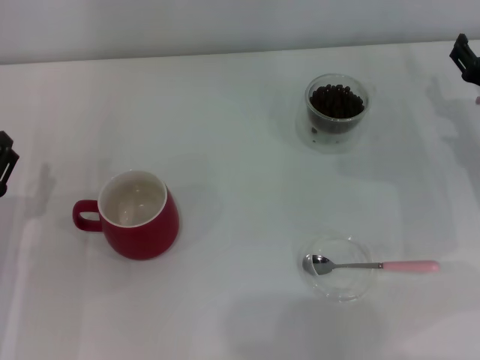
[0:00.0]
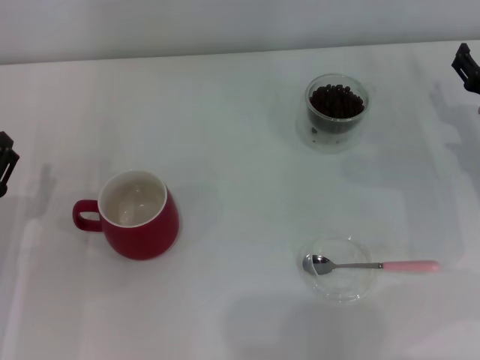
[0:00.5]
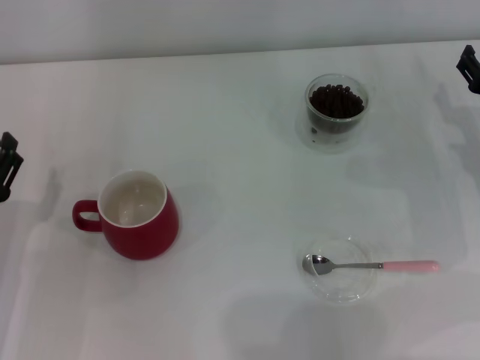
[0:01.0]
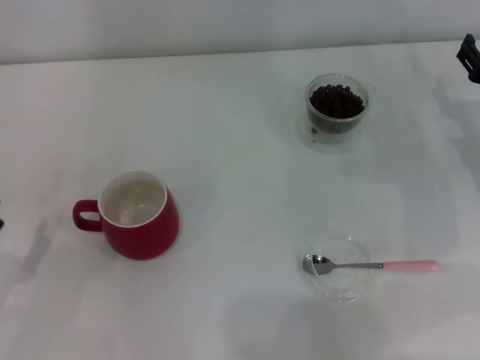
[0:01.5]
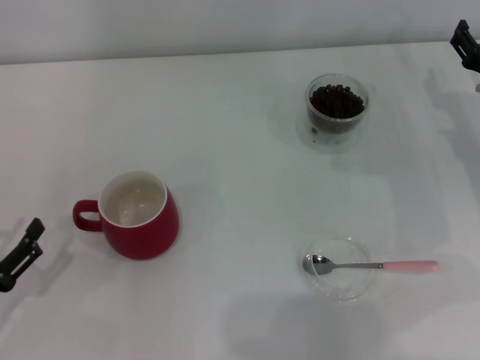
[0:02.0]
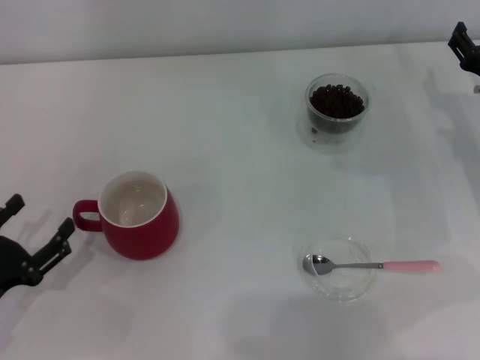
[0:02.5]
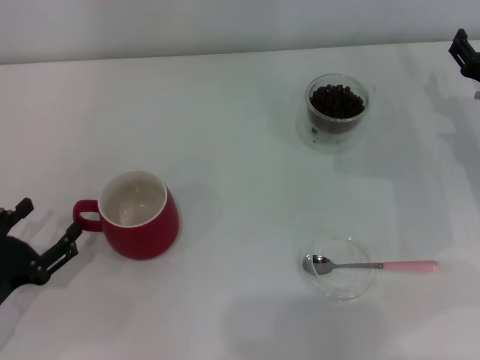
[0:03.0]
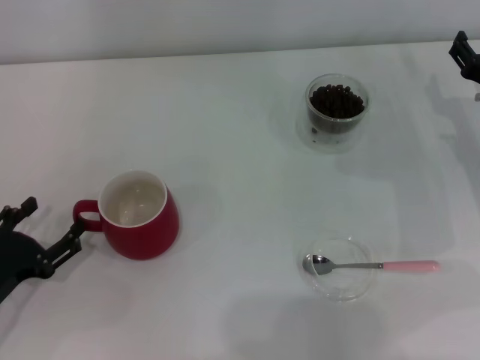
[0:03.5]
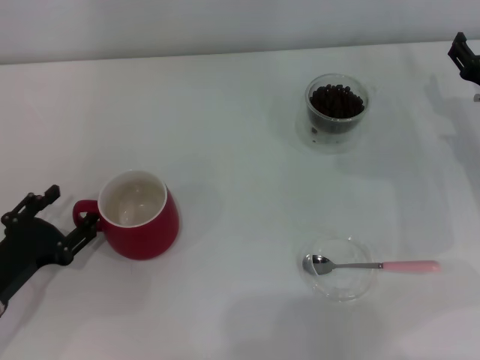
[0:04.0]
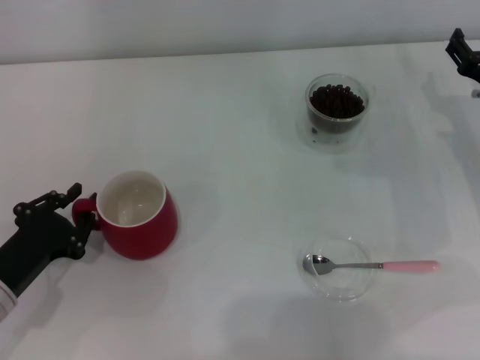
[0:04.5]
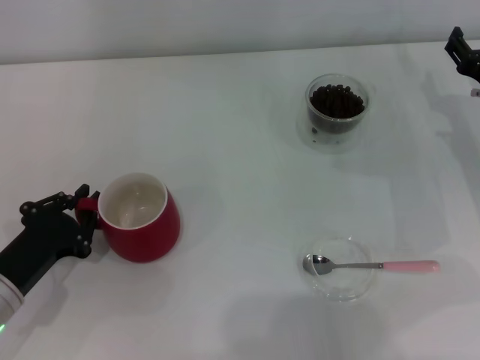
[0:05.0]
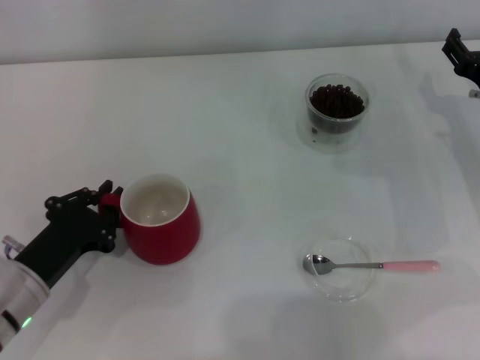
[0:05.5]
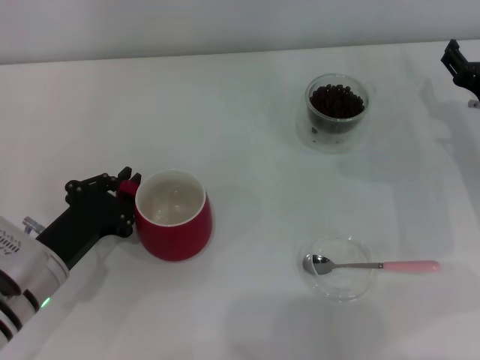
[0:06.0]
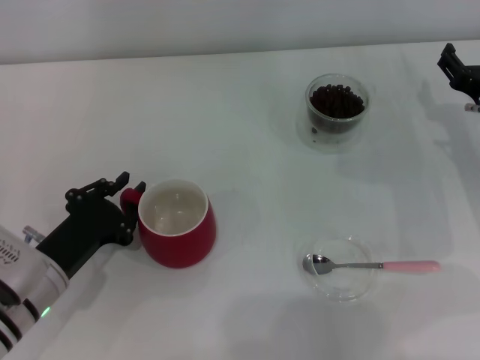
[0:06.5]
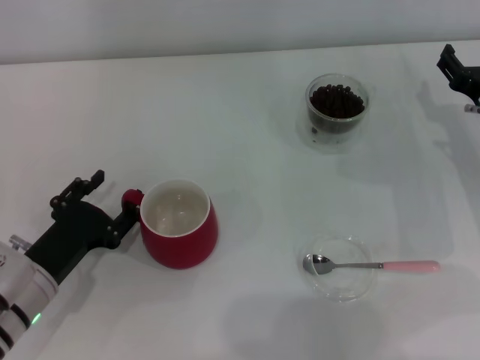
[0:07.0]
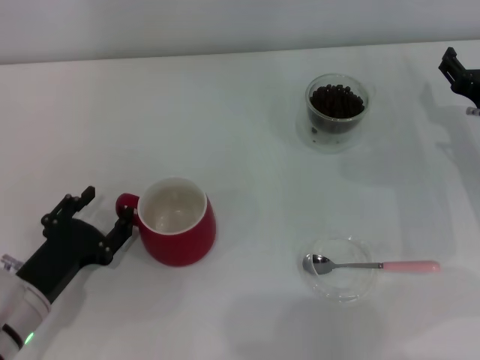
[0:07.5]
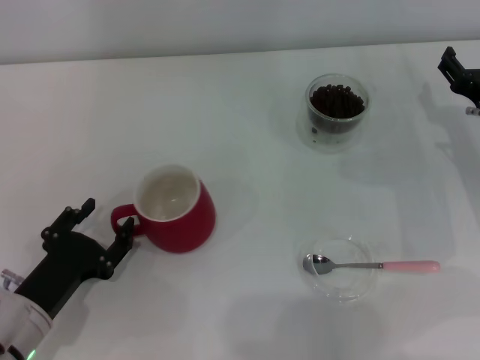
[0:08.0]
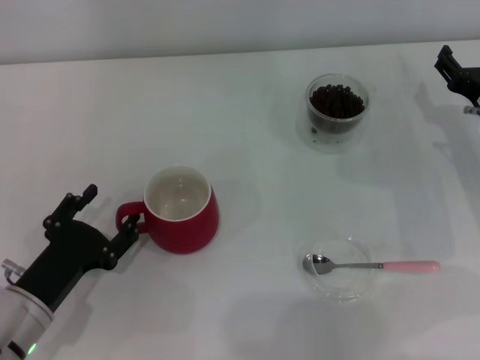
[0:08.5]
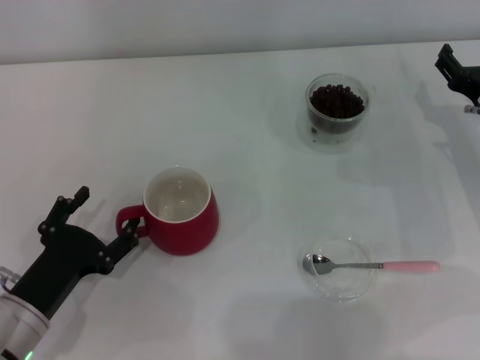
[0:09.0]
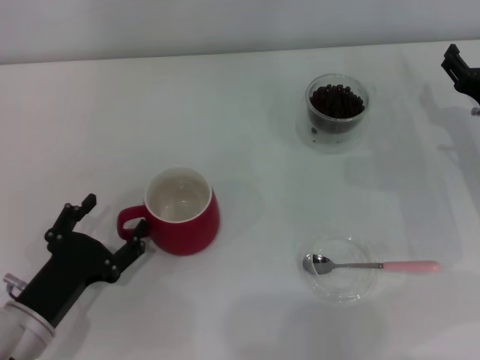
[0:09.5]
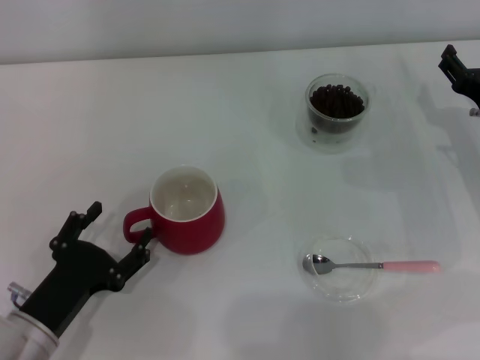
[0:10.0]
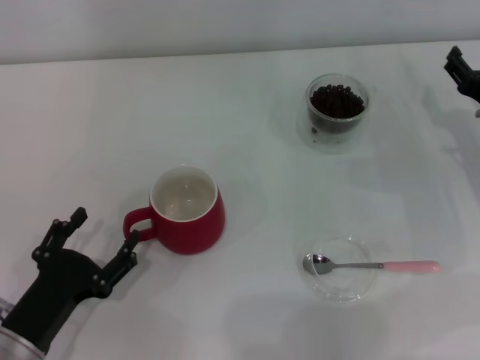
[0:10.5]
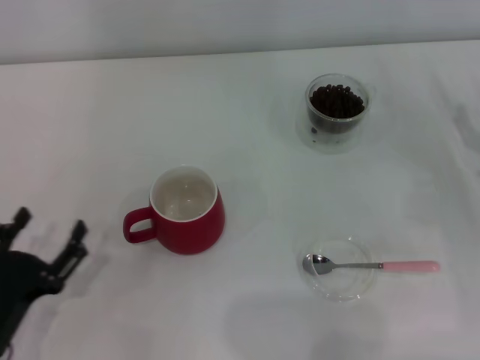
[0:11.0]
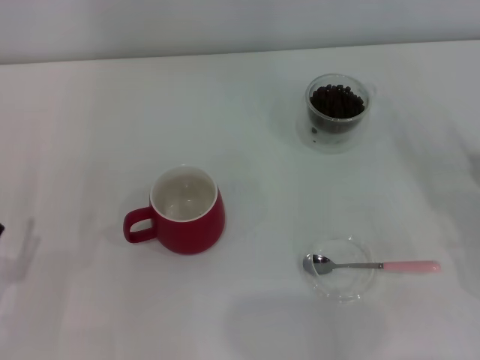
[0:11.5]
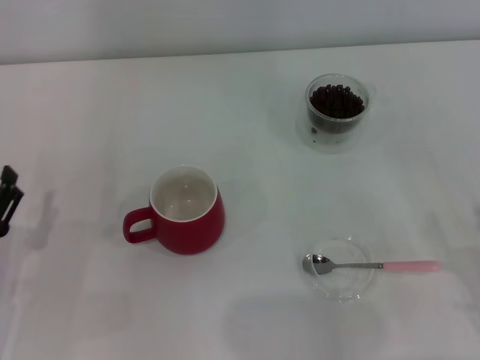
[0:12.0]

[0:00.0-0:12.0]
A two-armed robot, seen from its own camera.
Task of the whole recording: Use a pink spoon to take out the coffee beans from the glass and pour them into the red cup.
Step, 0:00.0 to 0:11.0: Move the cup to the center of view with the left gripper.
0:00.0 to 0:02.0: The left gripper goes some 5 cm backward.
0:02.0 to 0:04.0: The left gripper moves forward, approximately 5 cm.
0:04.0 to 0:06.0: The left gripper shifts approximately 5 cm to the right, and closes up.
0:06.0 to 0:08.0: The left gripper moves approximately 5 cm, and opens its fingers.
0:08.0 to 0:10.0: The grippers move only a little.
0:10.0 to 0:12.0: The left gripper goes approximately 5 cm to the left. The right gripper is displaced backward by approximately 20 cm.

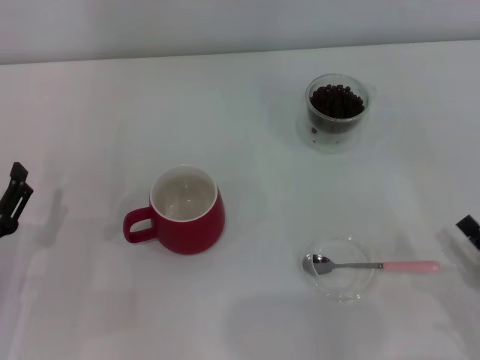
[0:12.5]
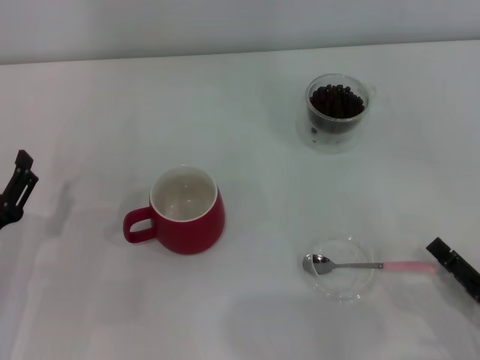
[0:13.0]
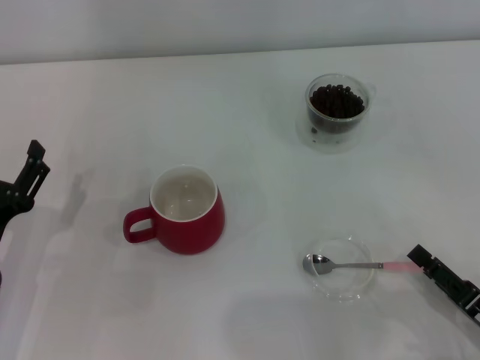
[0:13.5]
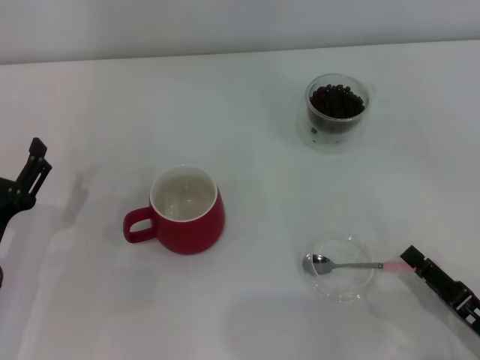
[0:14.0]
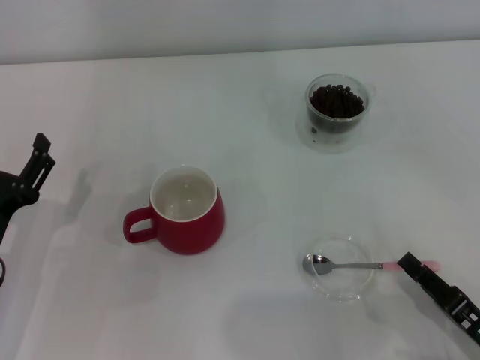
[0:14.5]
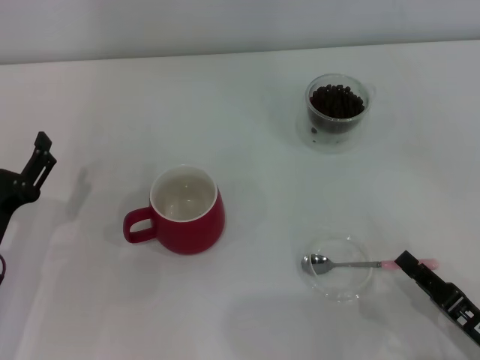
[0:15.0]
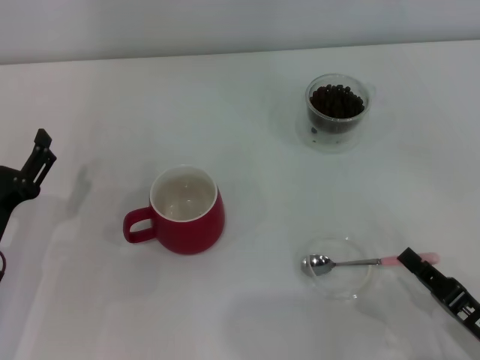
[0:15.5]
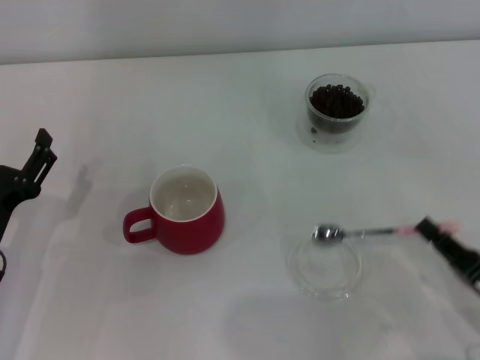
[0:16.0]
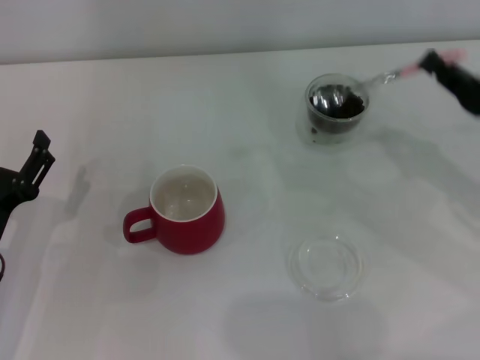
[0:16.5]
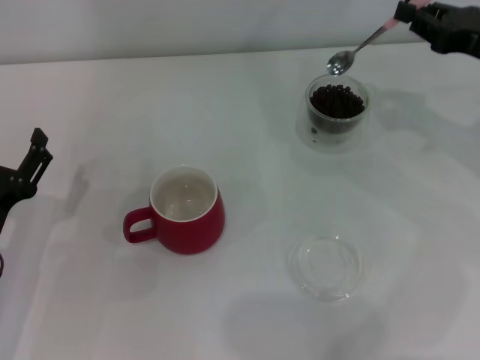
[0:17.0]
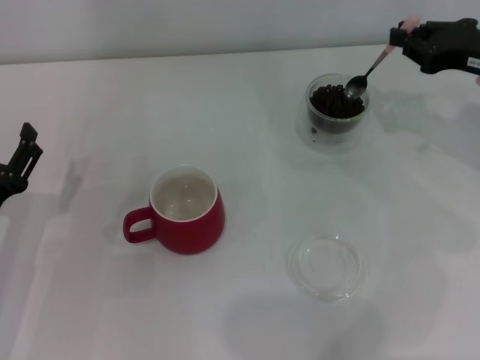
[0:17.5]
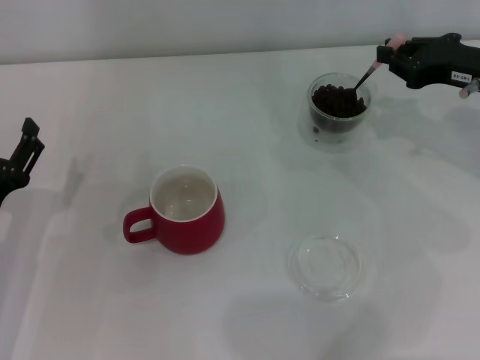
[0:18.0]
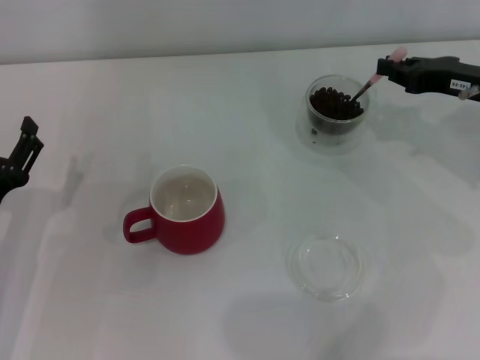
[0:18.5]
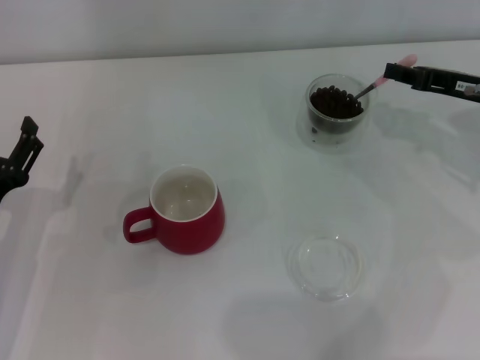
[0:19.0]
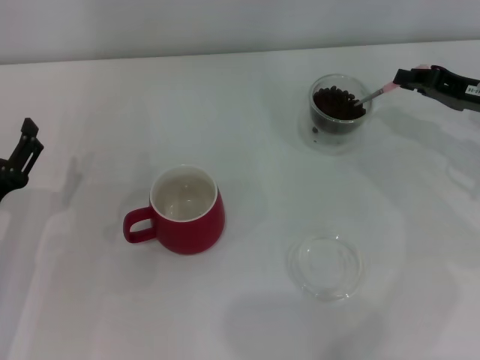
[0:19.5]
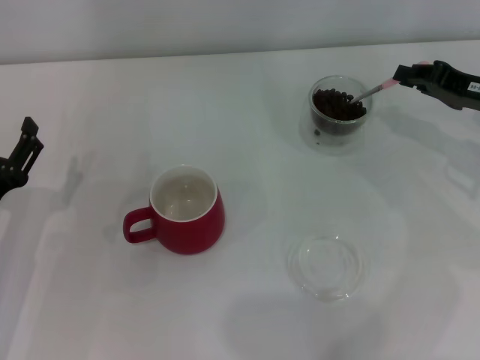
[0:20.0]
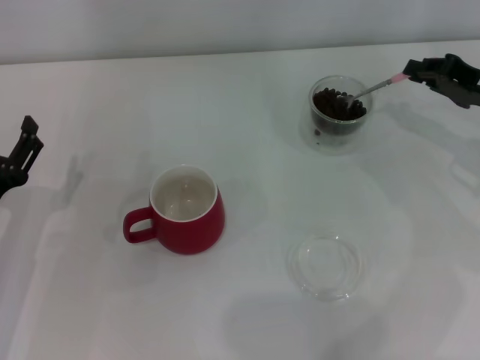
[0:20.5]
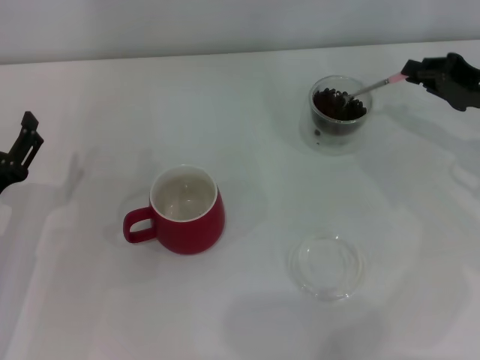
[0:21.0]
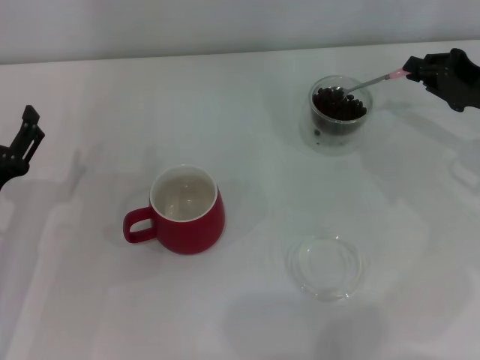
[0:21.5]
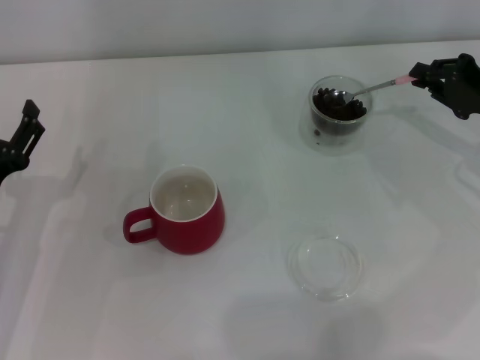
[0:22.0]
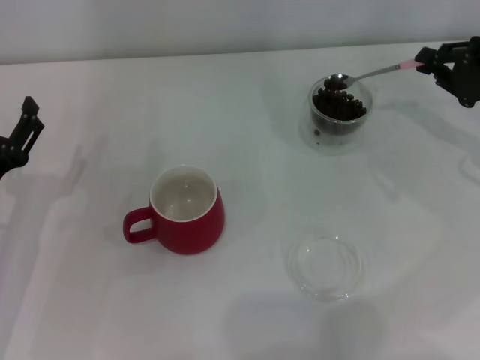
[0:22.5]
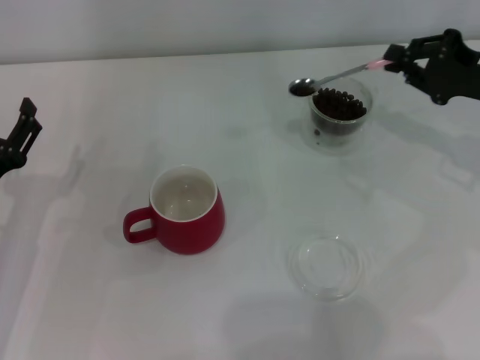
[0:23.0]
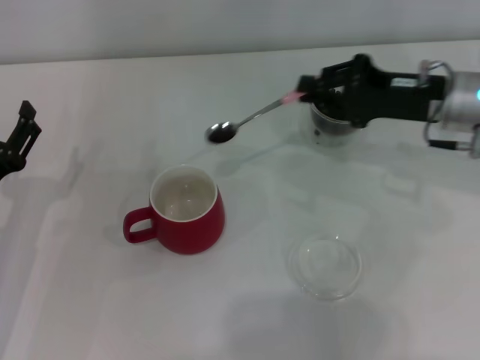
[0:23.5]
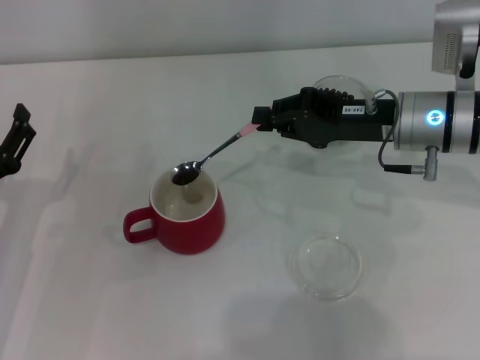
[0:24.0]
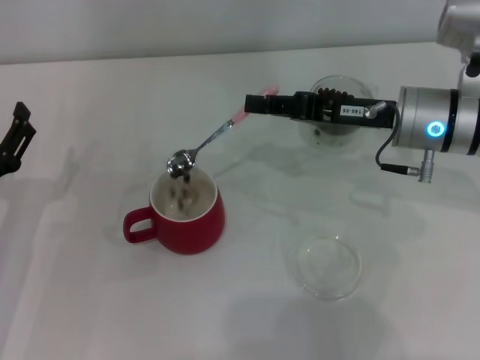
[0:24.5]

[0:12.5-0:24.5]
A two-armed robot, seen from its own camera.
Task of the whole recording: Use a pink spoon to take out the coffee beans from the glass and pour them into the red cup.
Step, 0:12.5 to 0:15.5: Pick up the spoon with the right gripper.
0:12.5 to 0:14.5: The right gripper closes.
0:14.5 to 0:16.5: The right gripper travels forward and upward by approximately 20 cm, and closes its fingers.
0:16.5 to 0:18.5: The right gripper shifts roughly 10 cm forward.
0:22.5 to 0:24.5: The right gripper moves to the left, about 15 cm.

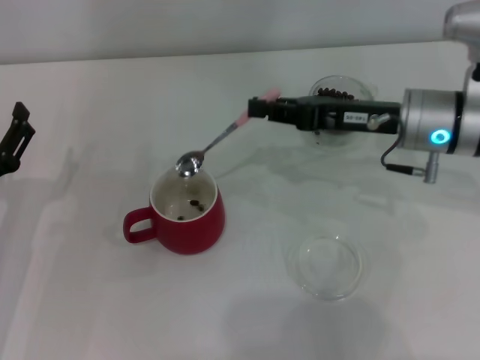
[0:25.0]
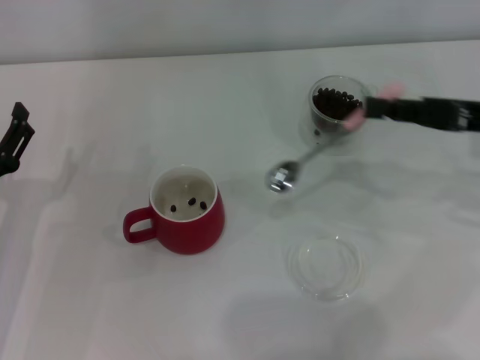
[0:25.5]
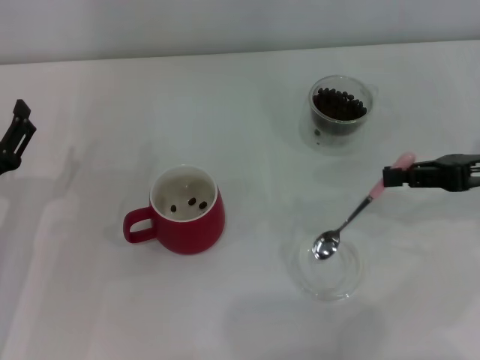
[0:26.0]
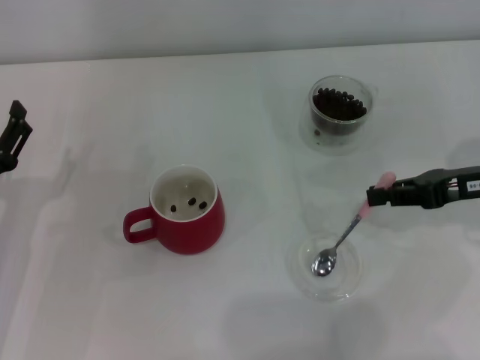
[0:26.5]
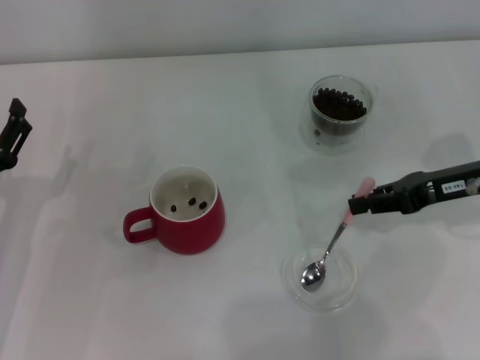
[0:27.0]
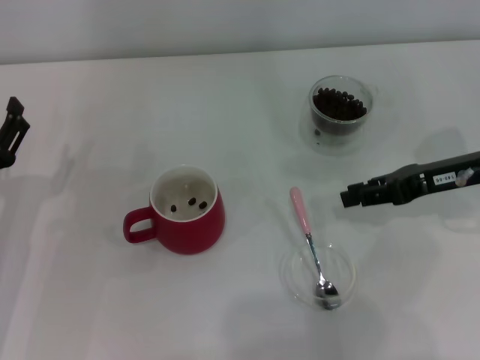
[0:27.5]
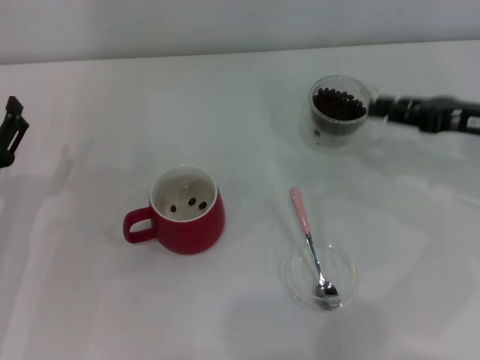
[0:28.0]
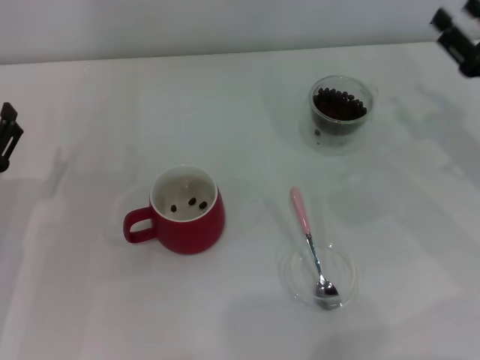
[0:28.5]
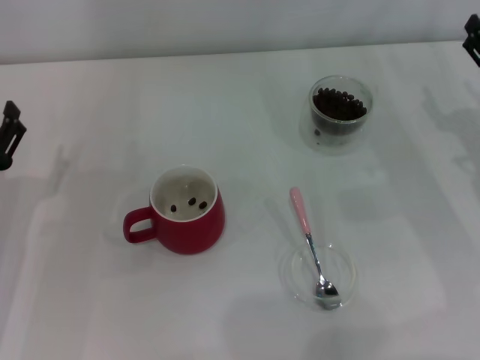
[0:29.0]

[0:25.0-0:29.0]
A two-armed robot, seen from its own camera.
Task of the whole recording: Use a pink spoon to take out the coffee beans from the glass and pour them into the red cup.
Step, 0:25.5 to 0:27.0: Place the spoon back in its original place with the right gripper.
0:25.0 to 0:27.0: The right gripper heads to the right, covering roughly 10 cm.
0:27.0 to 0:29.0: The right gripper opens its fingers.
